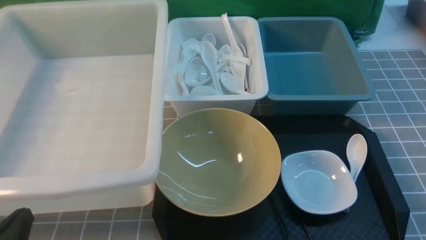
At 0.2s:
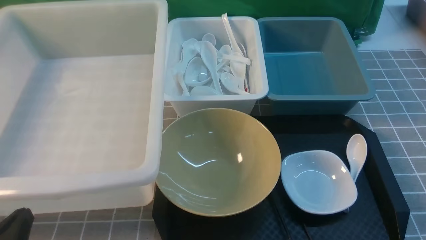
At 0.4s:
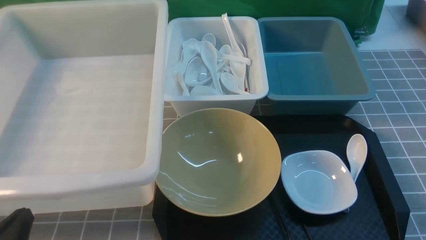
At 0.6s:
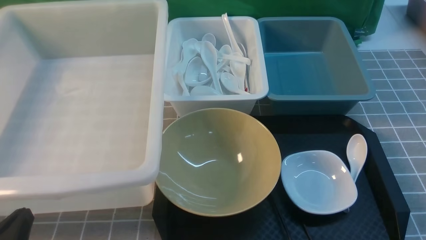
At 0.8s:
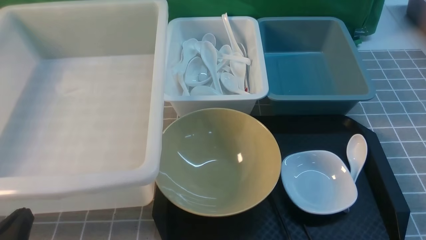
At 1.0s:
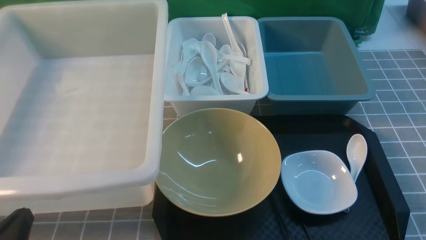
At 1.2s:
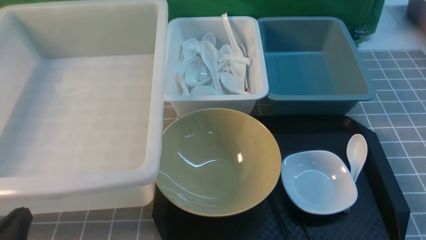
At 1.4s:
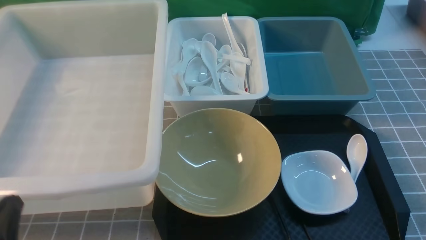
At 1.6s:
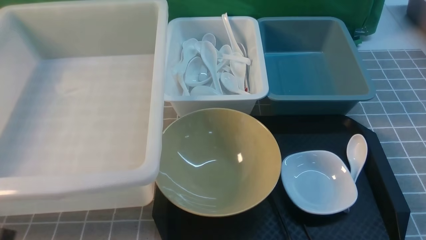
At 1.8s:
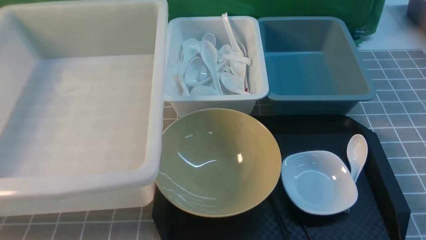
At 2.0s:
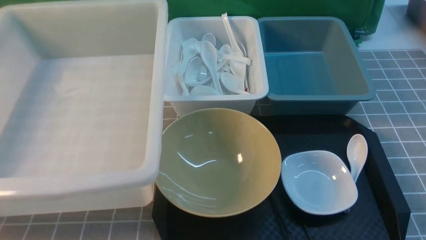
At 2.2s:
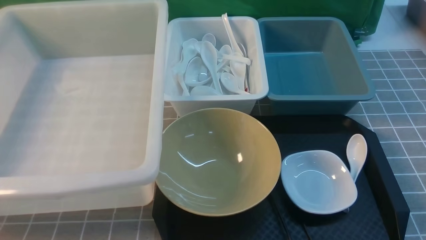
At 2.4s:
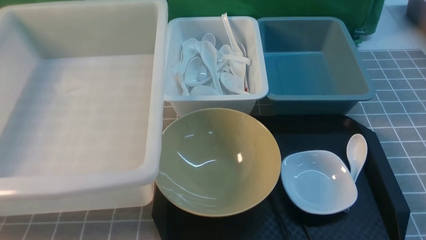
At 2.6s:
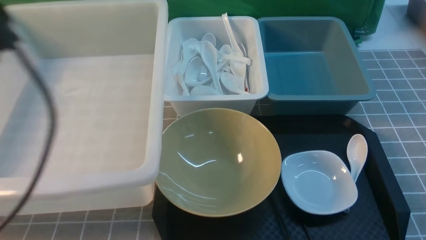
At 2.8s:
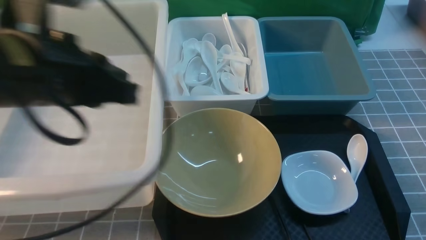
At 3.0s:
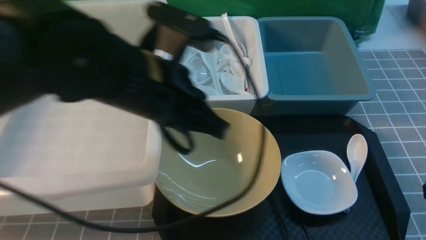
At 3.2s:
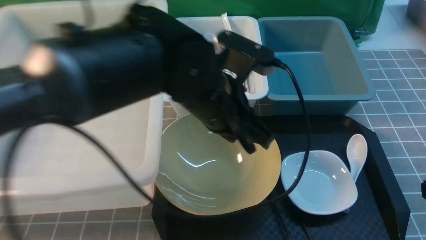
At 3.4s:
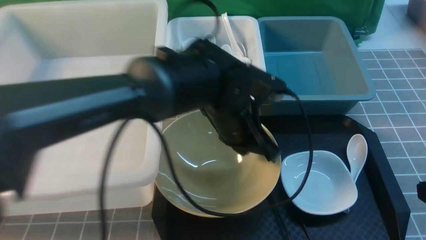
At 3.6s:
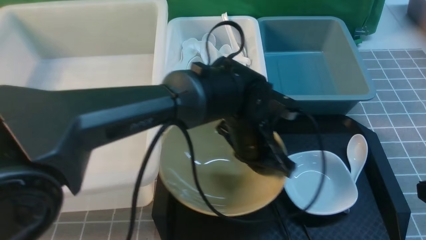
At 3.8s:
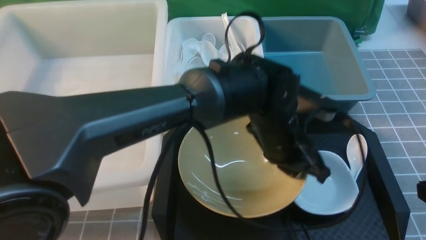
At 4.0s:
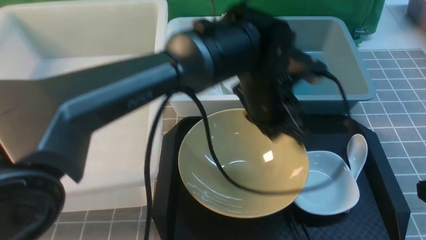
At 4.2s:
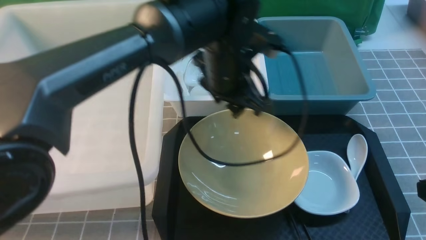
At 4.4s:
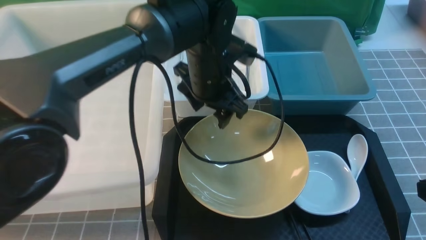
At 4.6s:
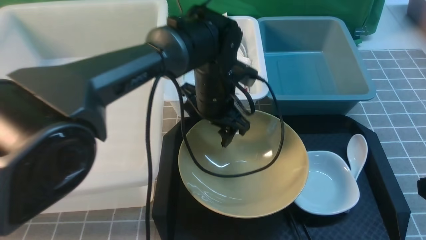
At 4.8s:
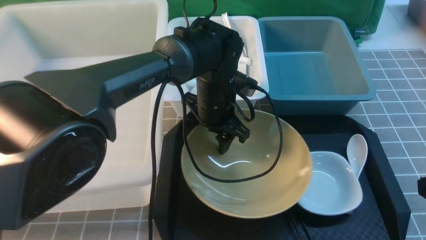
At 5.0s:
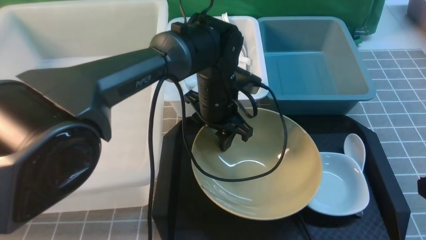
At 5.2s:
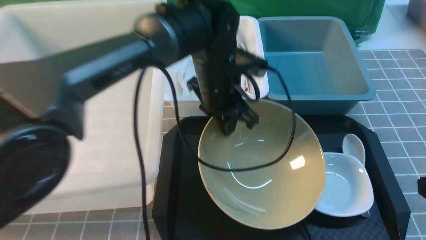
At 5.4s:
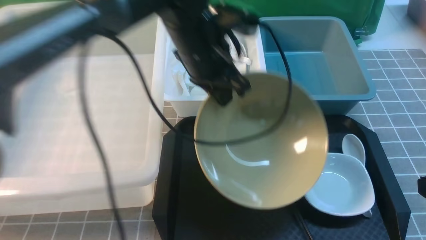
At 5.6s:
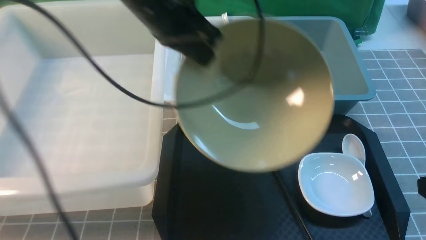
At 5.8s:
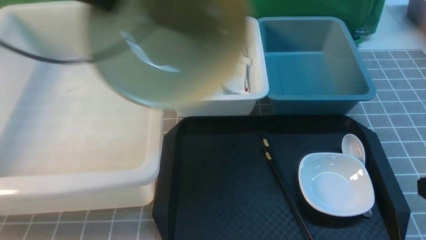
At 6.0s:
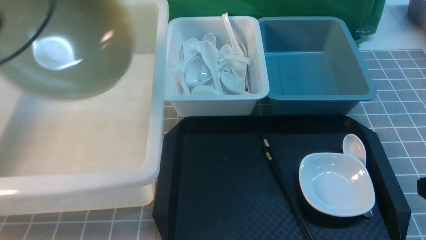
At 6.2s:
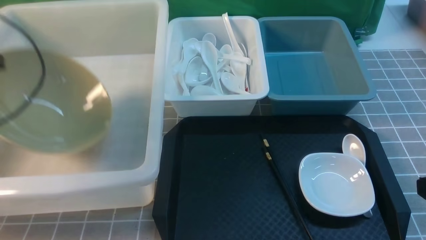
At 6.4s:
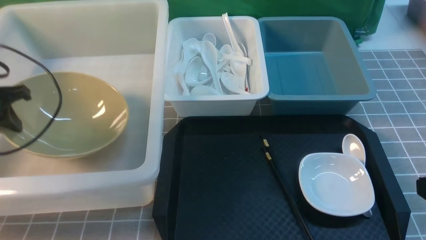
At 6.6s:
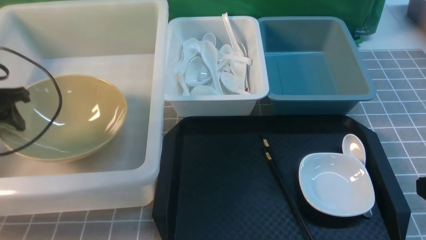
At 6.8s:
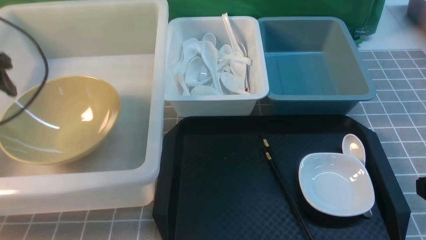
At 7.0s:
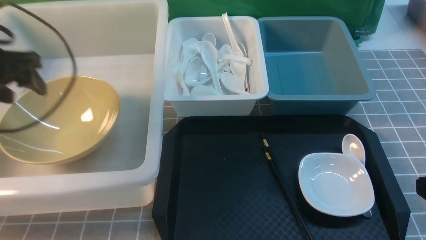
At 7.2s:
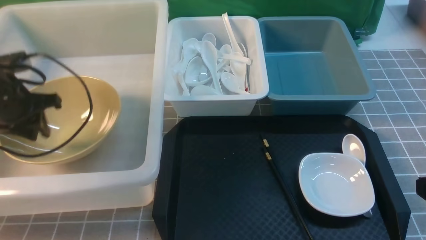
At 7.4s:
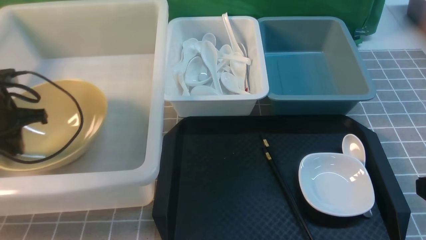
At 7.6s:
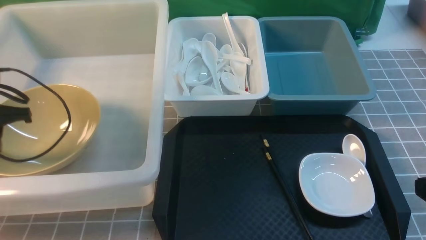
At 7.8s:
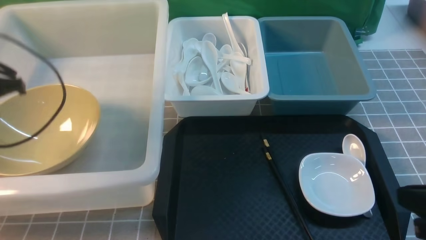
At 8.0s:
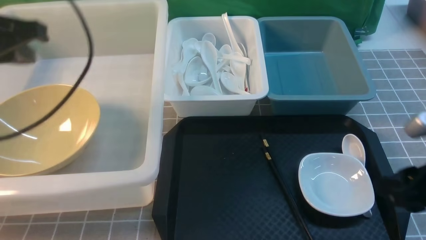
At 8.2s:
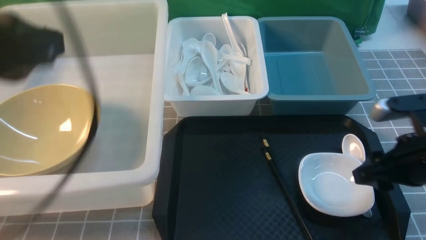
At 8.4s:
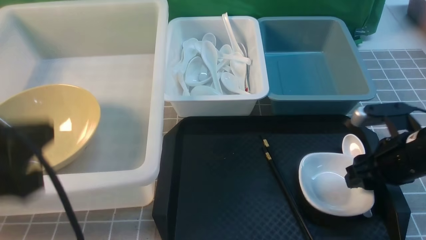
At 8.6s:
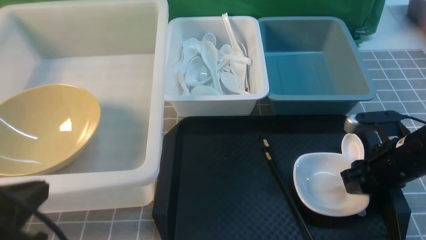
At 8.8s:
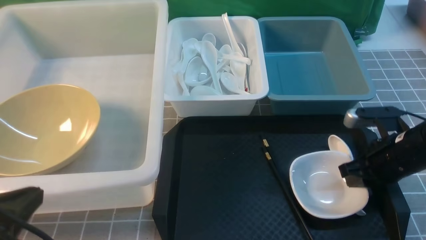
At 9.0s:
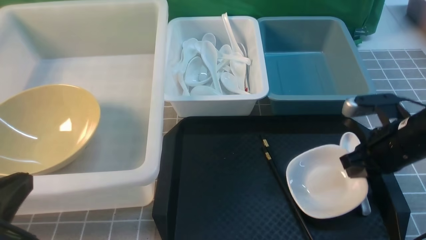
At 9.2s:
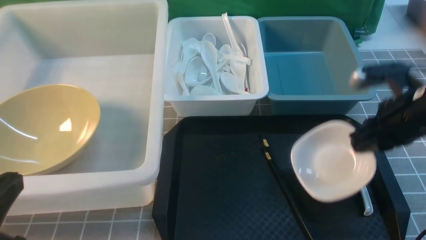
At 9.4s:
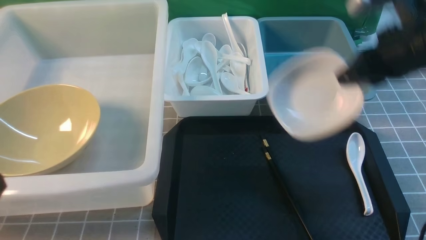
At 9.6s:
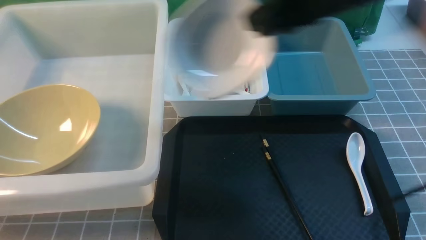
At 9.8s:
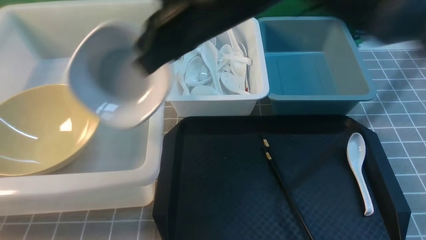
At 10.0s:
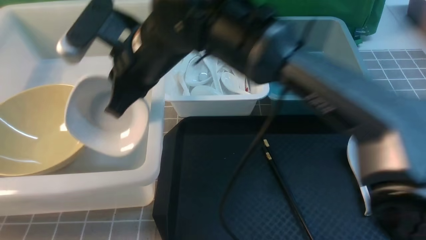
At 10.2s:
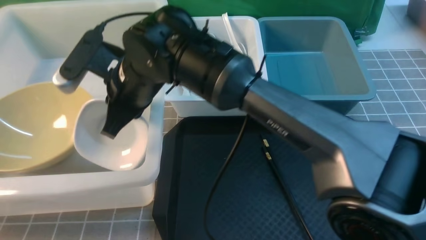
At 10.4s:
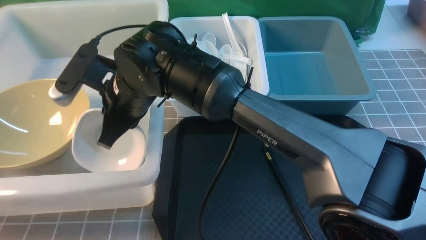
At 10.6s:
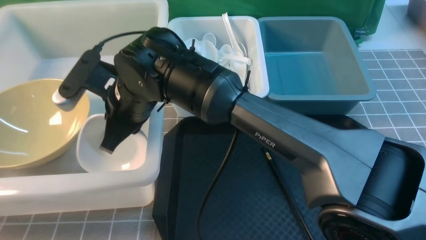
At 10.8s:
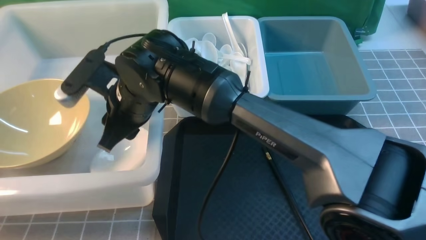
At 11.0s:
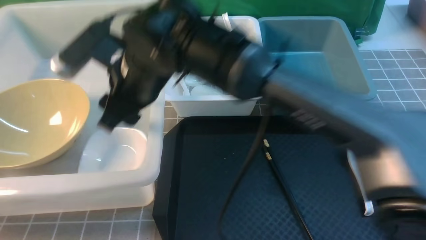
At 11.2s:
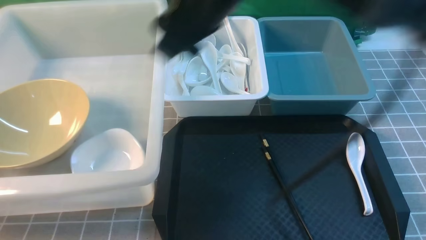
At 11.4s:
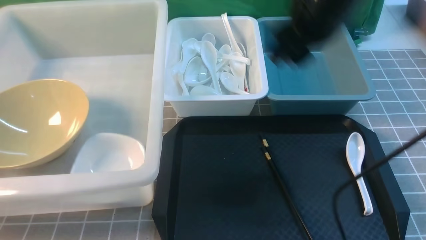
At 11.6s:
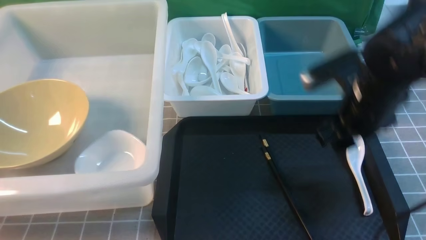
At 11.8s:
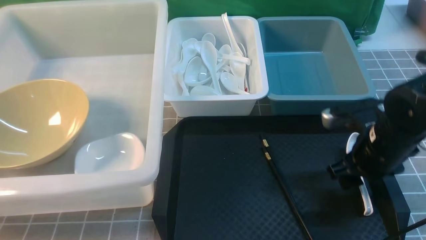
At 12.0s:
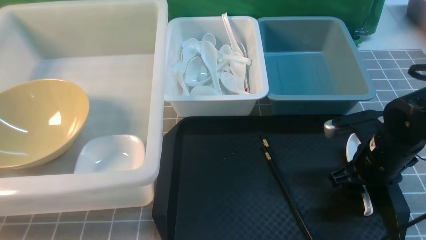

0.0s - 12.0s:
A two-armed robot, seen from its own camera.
Task of the whole recording: on grey table put chopsticks spoon bowls plates into blue grey white boxes.
Step, 0.0s - 5.4s: use the left arm to grab the yellow noodle bowl on the left.
Step, 5.6s - 8.0s: use the left arm to put the noodle bowl into the large storage box on the left.
Step, 8.2s - 9.2s: use the right arm to grab the plate.
Step, 9.4s - 11.0s: use the right arm to put the plate into the large storage box on the left.
0.0s - 1.6s: The left gripper shifts some 5 cm upward.
1.6s - 3.0s: The left gripper heads to the right, forward and upward, covering some 30 cm. The right gripper heads forward, covering some 5 cm, and travels upward and back again, approximately 10 cm each way.
3.0s - 4.4s: The left gripper heads forward, downward and to the right, covering roughly 15 cm, and opens.
4.4s - 6.0s: The left gripper heads to the left and upward, covering about 35 cm, and closes up.
6.0s - 7.6s: The left gripper moves downward, approximately 15 cm, and opens, then closes once more.
7.6s - 9.0s: The right gripper goes about 15 cm forward, and opens and closes again. Meanwhile the left gripper is displaced backward and to the right by approximately 30 cm.
9.0s - 10.4s: The right gripper goes roughly 35 cm to the left.
10.4s - 12.0s: The right gripper travels to the right by some 35 cm, and opens.

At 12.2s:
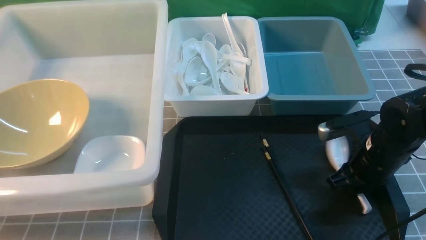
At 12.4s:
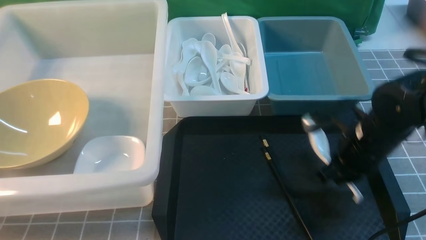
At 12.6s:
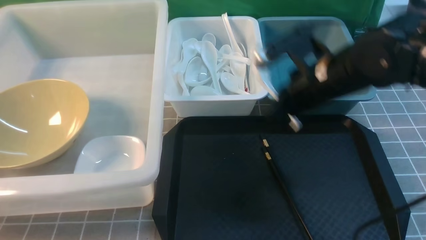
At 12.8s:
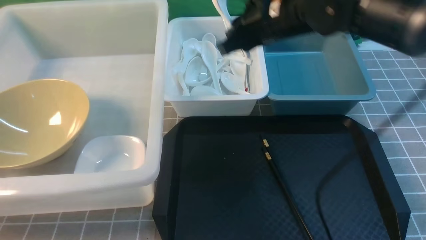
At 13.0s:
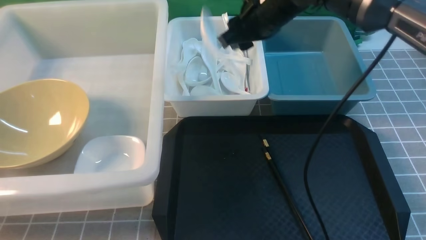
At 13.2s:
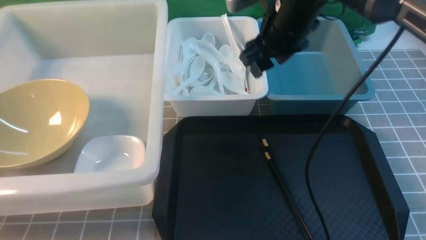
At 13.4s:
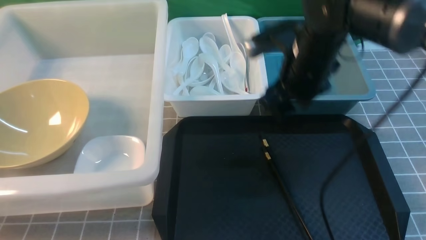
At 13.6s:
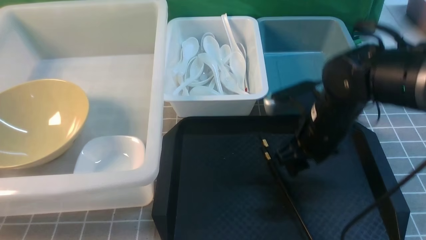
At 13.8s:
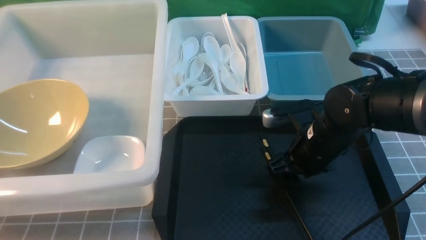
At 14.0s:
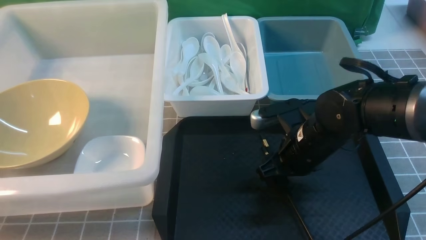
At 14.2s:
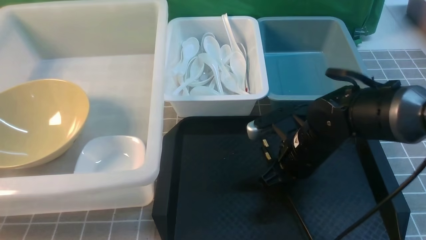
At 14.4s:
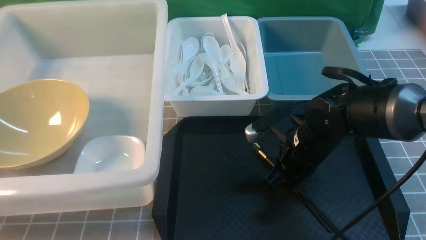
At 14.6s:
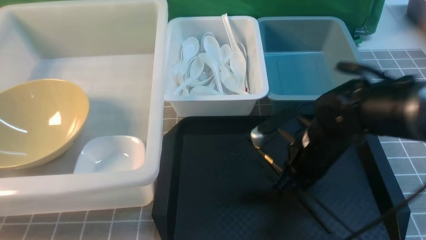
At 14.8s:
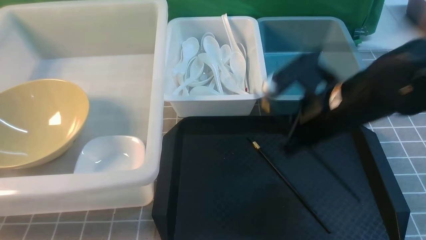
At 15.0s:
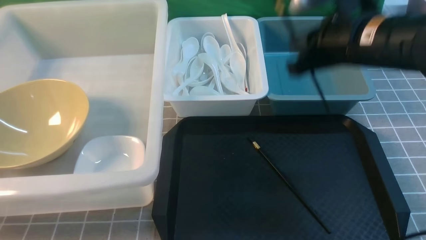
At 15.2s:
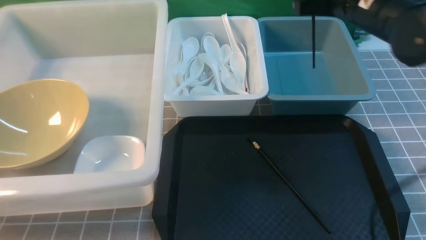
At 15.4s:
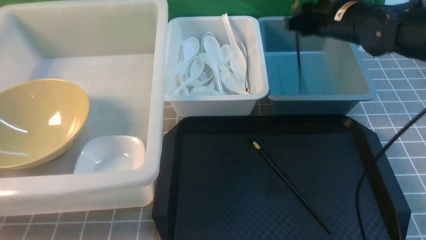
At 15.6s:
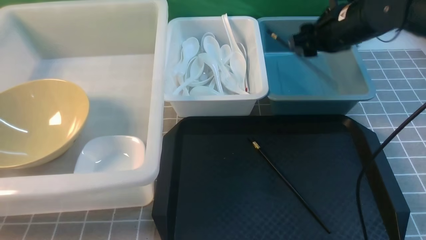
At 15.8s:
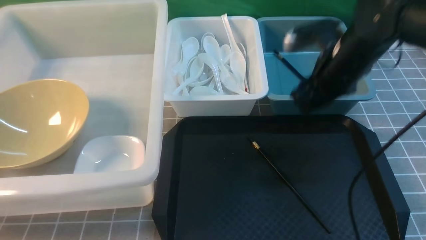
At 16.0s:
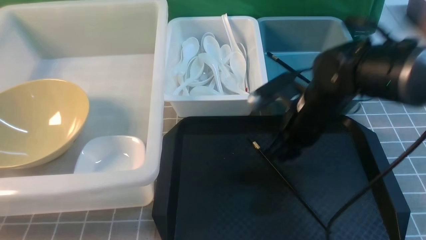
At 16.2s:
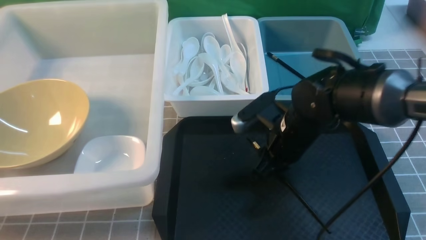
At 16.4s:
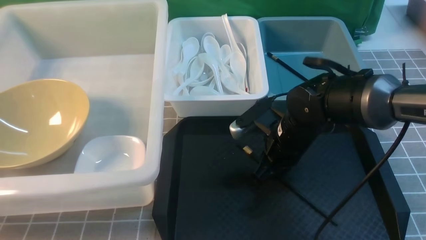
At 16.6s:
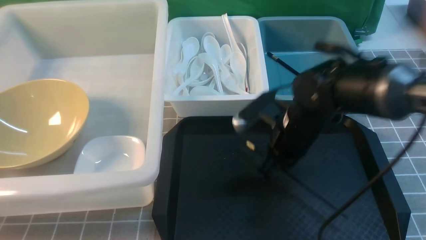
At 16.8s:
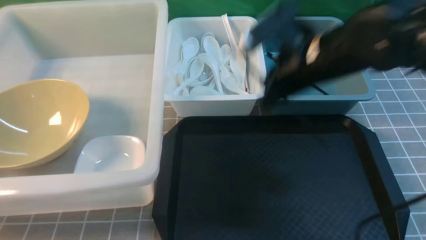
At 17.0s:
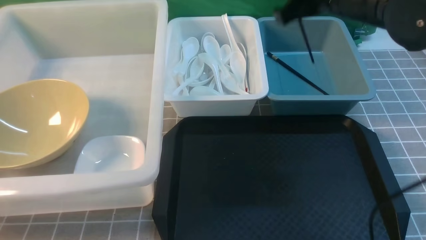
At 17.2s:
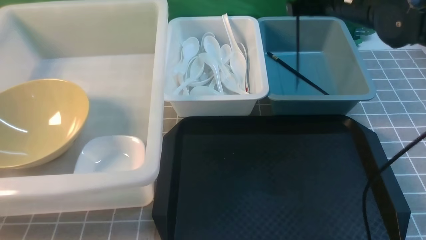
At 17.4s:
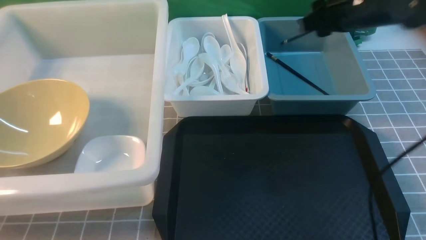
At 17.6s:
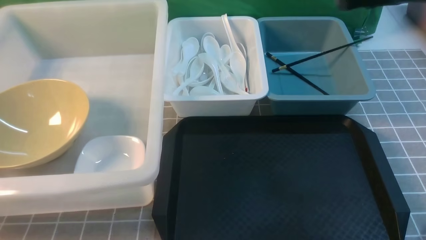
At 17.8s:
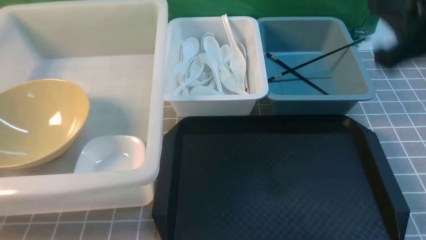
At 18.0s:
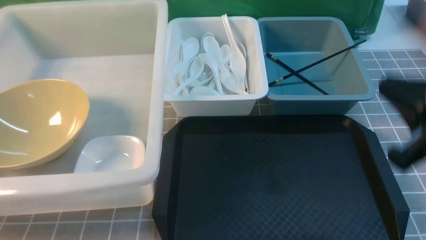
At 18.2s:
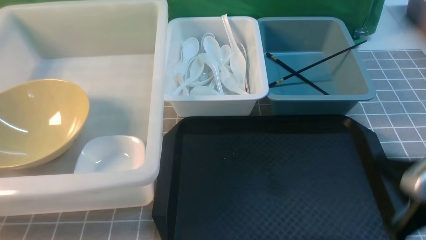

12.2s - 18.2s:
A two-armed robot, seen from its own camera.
Task of the whole recording: on grey table put chopsticks spoon bowls plates into blue grey white boxes.
Step, 12.6s - 13.0s: use the right arm to put the soup spoon into the small storage box in the middle.
Step, 13.2s - 14.8s: use the right arm to grab a chopstick.
Step, 15.0s - 15.6s: use the right arm to put a chopstick into the small storage box on the right.
Step, 15.8s - 16.8s: use the right arm to grab a chopstick.
Step, 17.0s - 17.6s: use the right arm to put a chopstick into the small storage box on the right.
12.2s - 13.8s: The right gripper is displaced to the left by about 10 cm, moves some 15 cm upward and comes back, and opens.
13.8s - 15.2s: The right gripper is displaced upward and forward by approximately 15 cm, and closes its fingers.
15.2s - 16.6s: The right gripper shifts some 10 cm downward, to the left and backward, and opens, then closes once more.
16.6s - 18.2s: The right gripper travels backward and to the right by roughly 25 cm.
